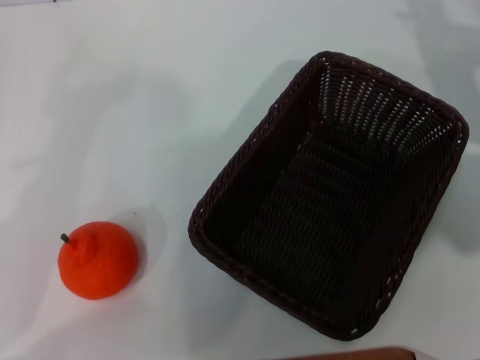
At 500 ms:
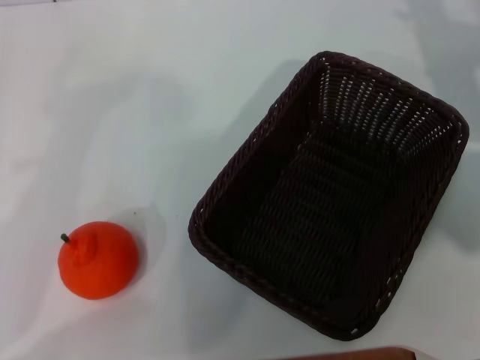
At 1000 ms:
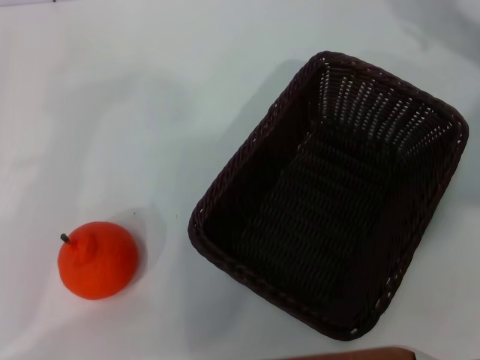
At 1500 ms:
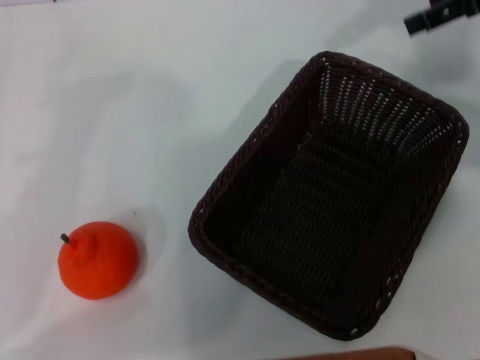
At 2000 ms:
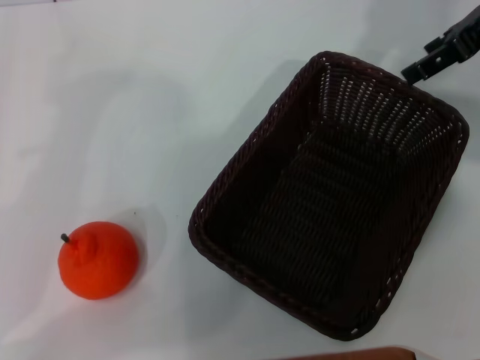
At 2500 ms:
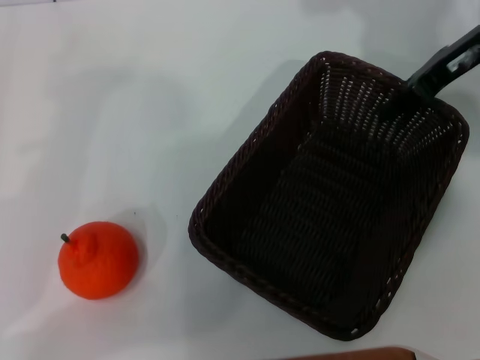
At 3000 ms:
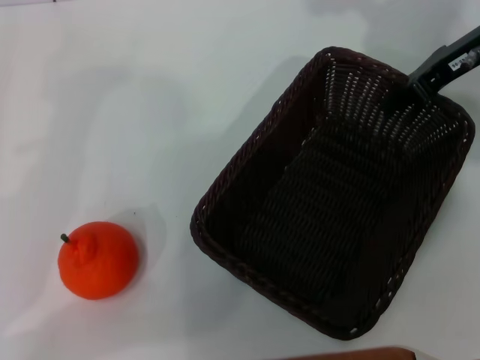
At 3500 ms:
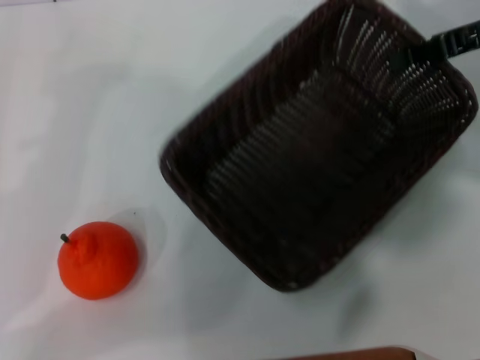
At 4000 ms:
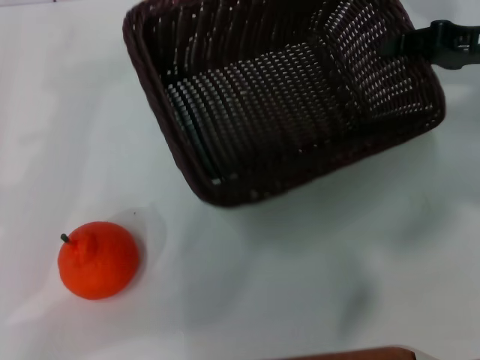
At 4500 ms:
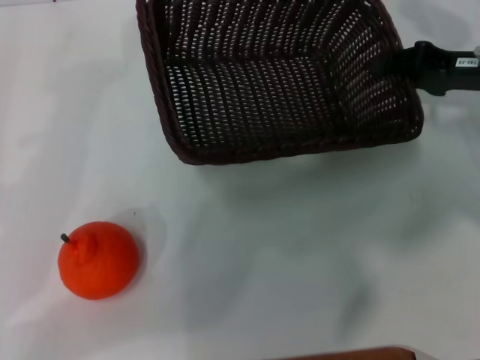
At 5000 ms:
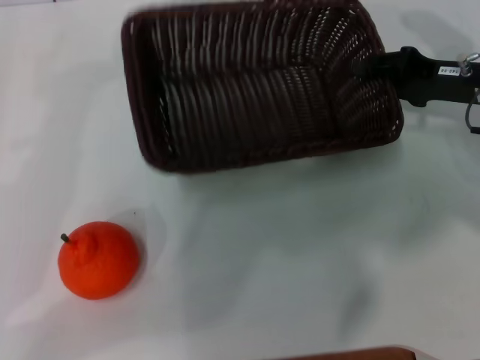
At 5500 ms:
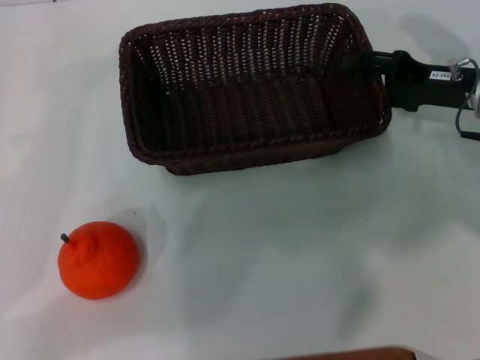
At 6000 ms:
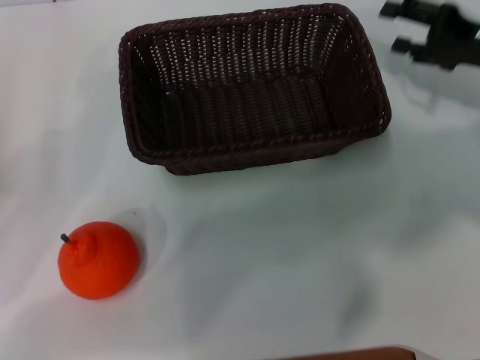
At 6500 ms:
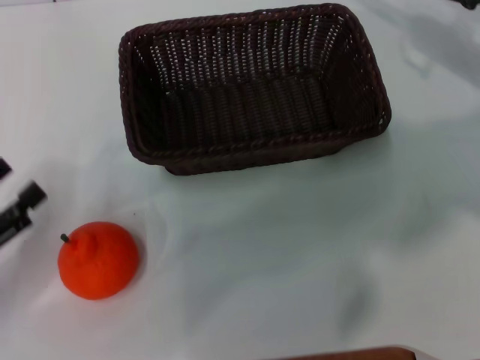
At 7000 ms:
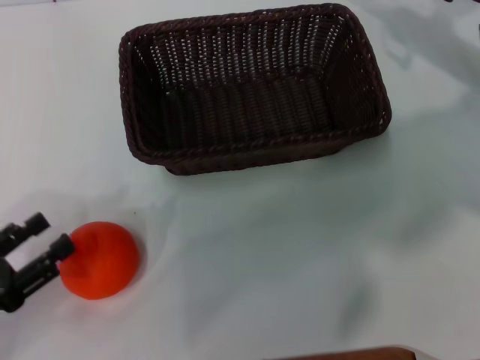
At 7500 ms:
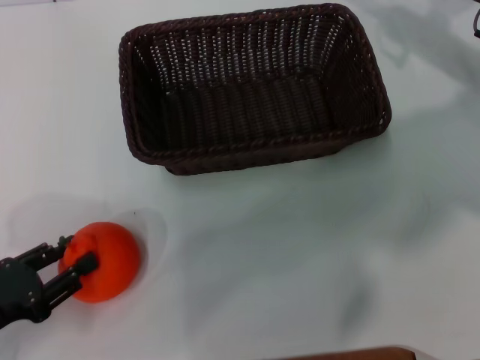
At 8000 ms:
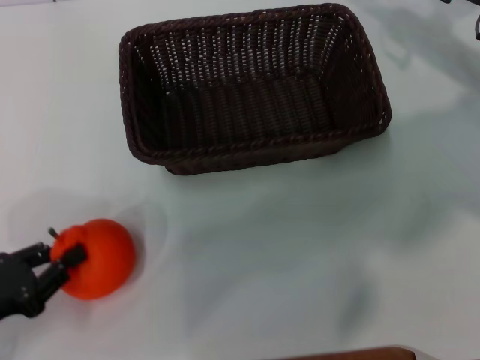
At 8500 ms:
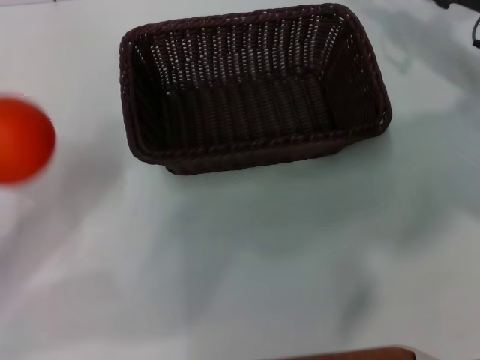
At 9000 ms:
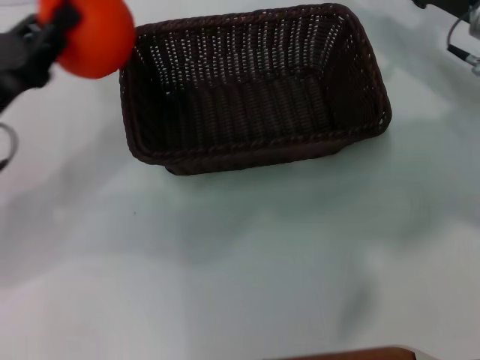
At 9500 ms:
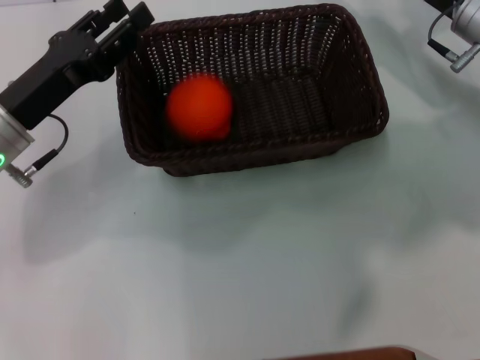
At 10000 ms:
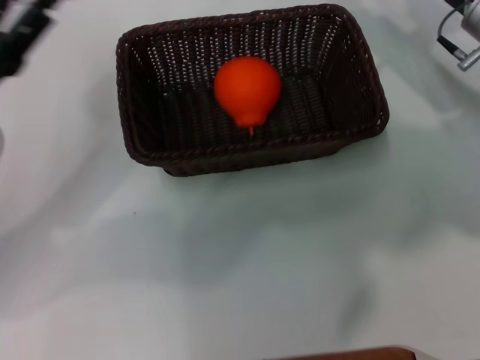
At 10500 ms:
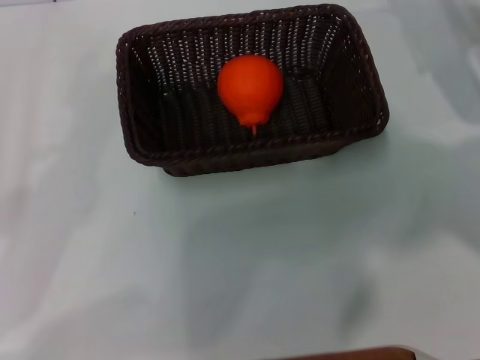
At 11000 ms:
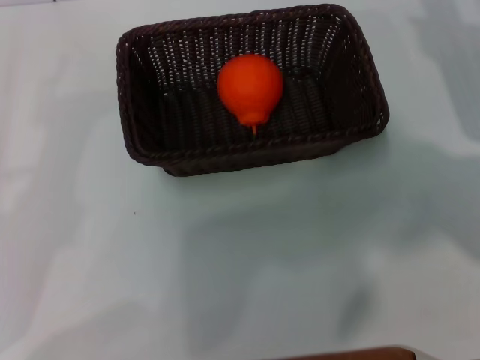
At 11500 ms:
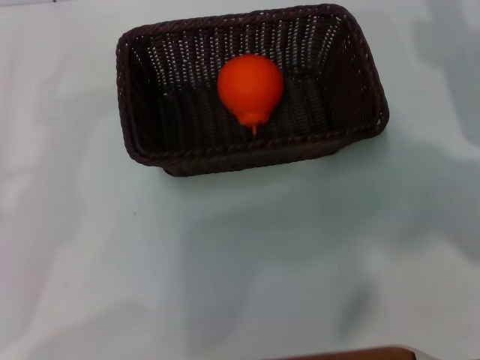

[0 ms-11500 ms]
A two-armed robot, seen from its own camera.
Task of the whole recording: the right gripper pick up the black basket and place it horizontally in the middle of the table, the left gripper pick up the orange and place it into the black basket.
Step, 0 ms to 3500 ms: Pick up the dark basket with the right gripper.
Step, 4000 ms to 5500 ms: Place the dark basket in the center of view with the right gripper.
Step, 6000 ms to 8000 ms: Pick up the orange with the left gripper.
Step, 8500 ms to 9500 ms: Place the orange into the dark basket with the left gripper.
0 ms to 2000 ms: The right gripper shifts roughly 15 cm upward.
2000 ms to 4000 ms: The right gripper goes roughly 10 cm downward, and closes.
4000 ms to 6000 ms: The right gripper opens up.
6000 ms to 7500 ms: The left gripper goes approximately 10 cm downward and backward. Meanwhile the right gripper moves some 5 cm.
7500 ms to 9500 ms: The left gripper shifts some 20 cm forward, to the right and upward, and closes, then reopens.
9500 ms to 11500 ms: The right gripper heads to the right, covering about 5 cm; the left gripper moves backward and to the left, about 20 cm, and opens up.

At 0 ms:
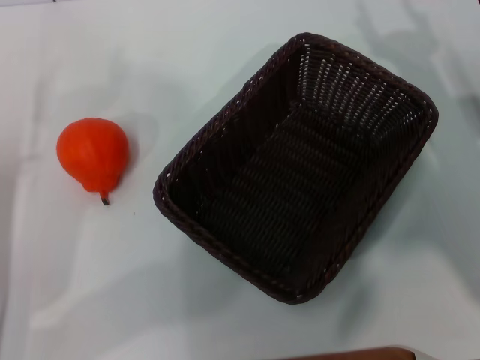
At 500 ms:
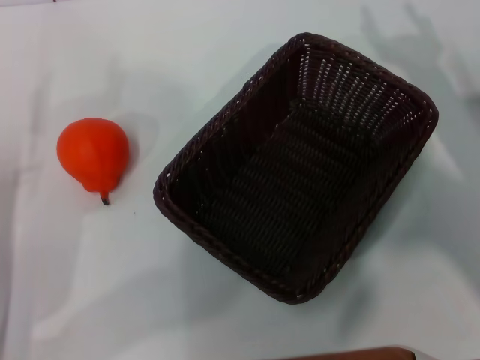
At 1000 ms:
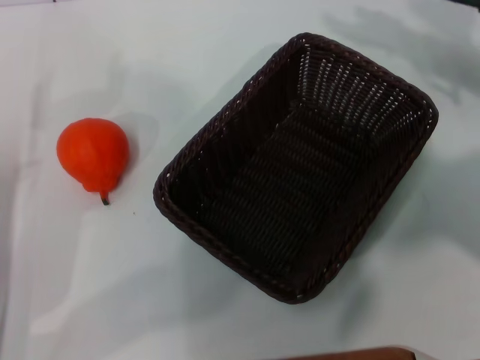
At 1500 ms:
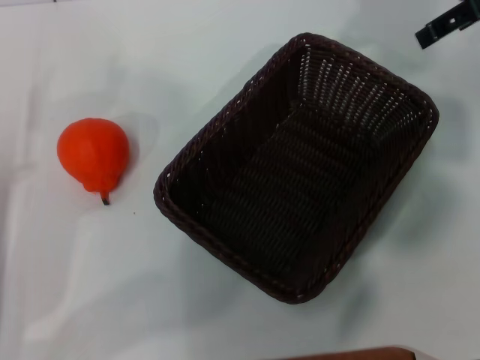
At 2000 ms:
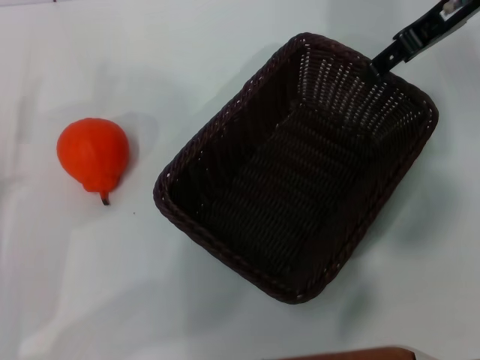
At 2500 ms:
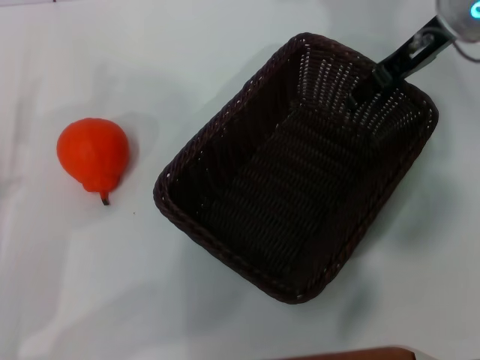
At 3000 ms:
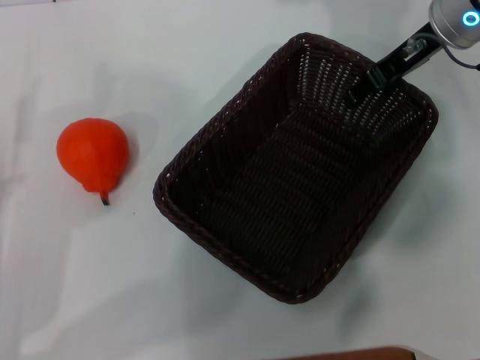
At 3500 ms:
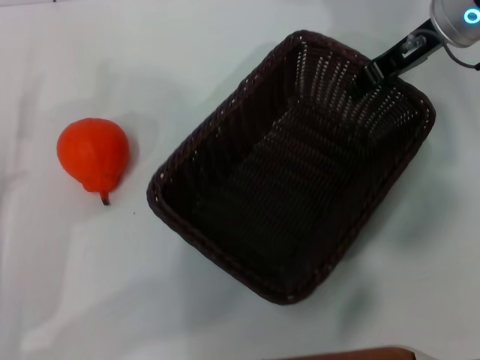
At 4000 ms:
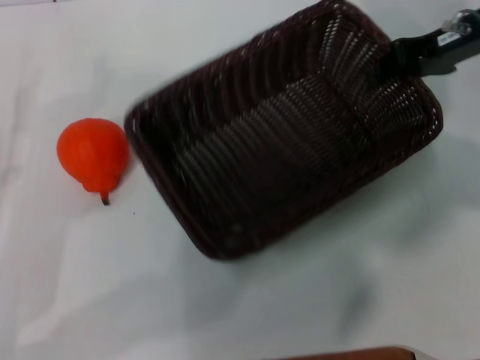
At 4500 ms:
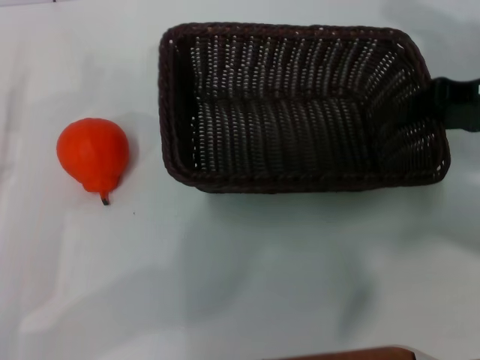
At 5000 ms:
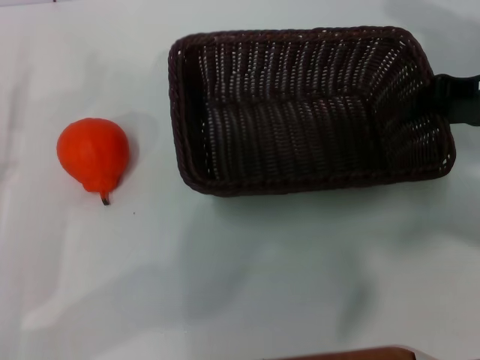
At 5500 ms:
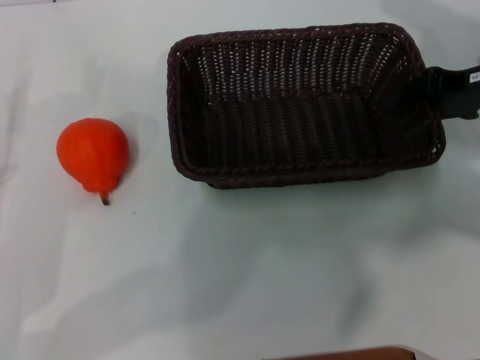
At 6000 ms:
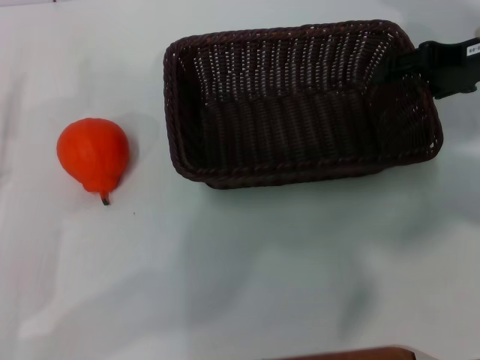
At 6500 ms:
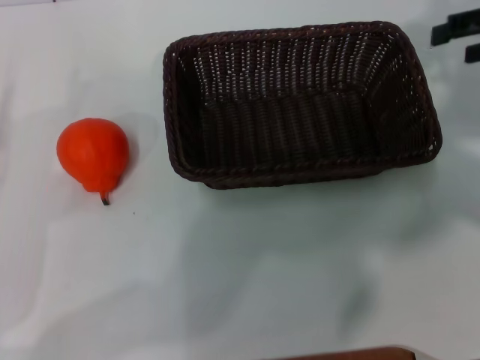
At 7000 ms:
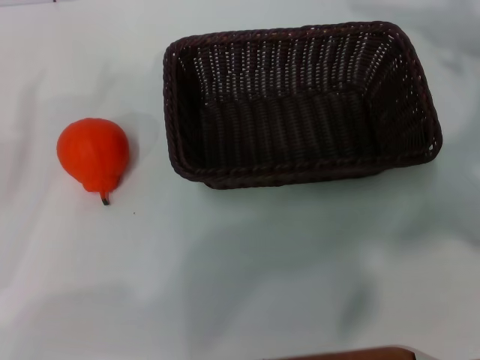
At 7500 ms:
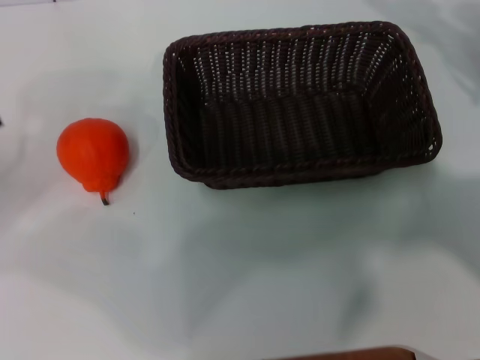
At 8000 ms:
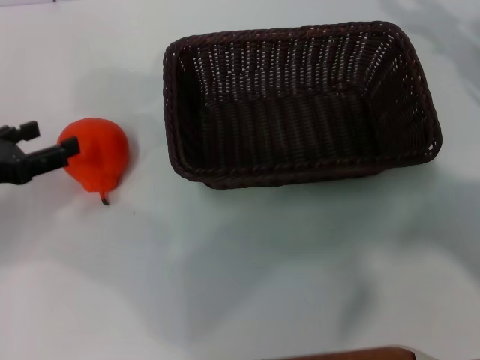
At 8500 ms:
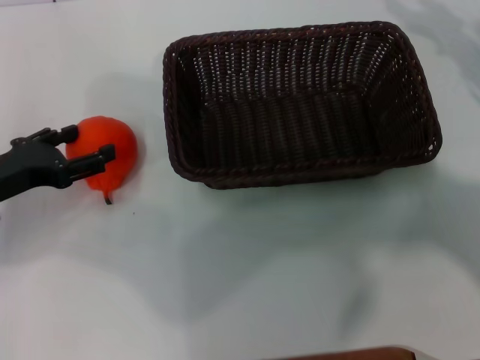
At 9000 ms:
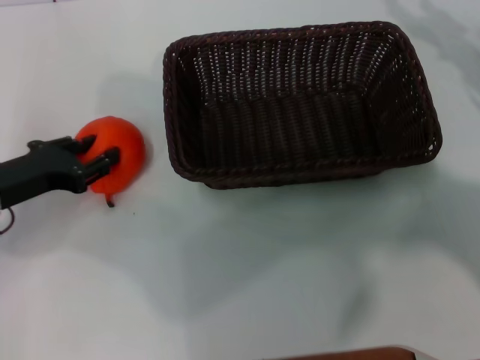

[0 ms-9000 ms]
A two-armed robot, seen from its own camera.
Task of the whole recording: the right gripper pick up the black basket and place it horizontally in the middle of the table, the left gripper pick up the orange and place it into the black basket.
Step, 0 ms to 3500 ms: Pick up the dark basket with the right gripper.
Step, 4000 ms to 6000 ms: Place the dark basket in the center of view with the right gripper.
0 ms to 2000 ms: The right gripper is displaced upward and forward by roughly 20 cm.
2000 ms to 4500 ms: The right gripper shifts some 15 cm downward, to the right and backward, and closes its fingers.
4500 ms to 7000 ms: The left gripper moves to the left, approximately 5 cm, while the right gripper shifts roughly 10 cm upward and to the right, and opens up.
7000 ms to 9000 ms: The right gripper heads downward, covering about 10 cm; the left gripper goes approximately 10 cm to the right and forward.

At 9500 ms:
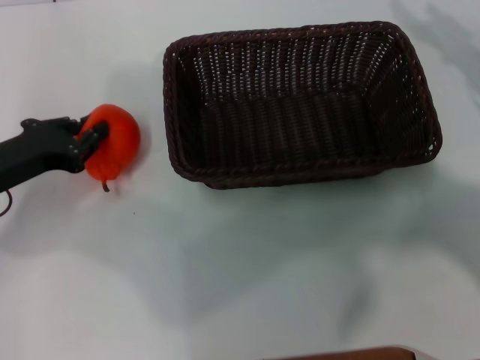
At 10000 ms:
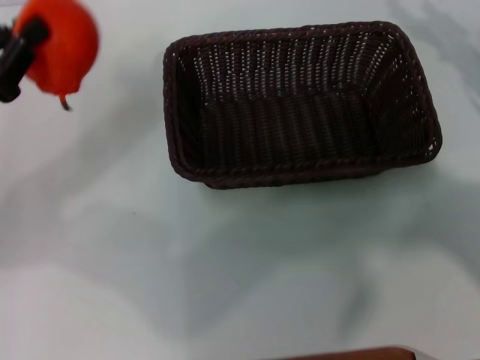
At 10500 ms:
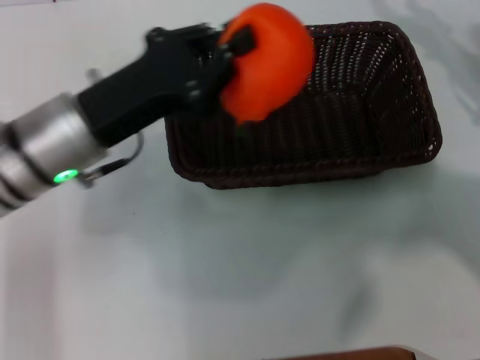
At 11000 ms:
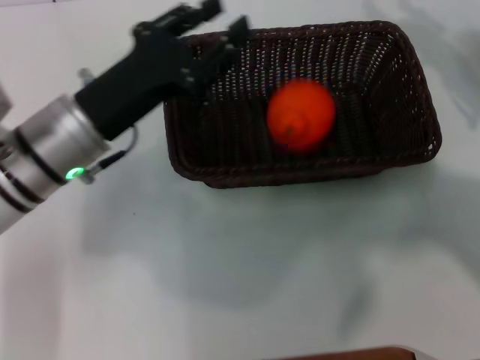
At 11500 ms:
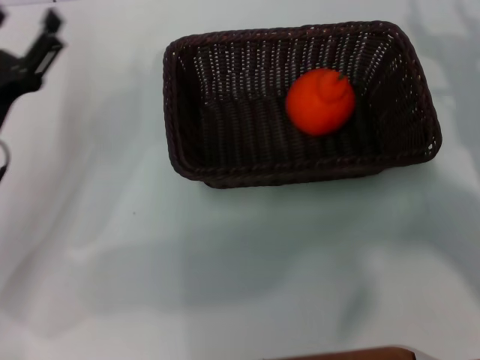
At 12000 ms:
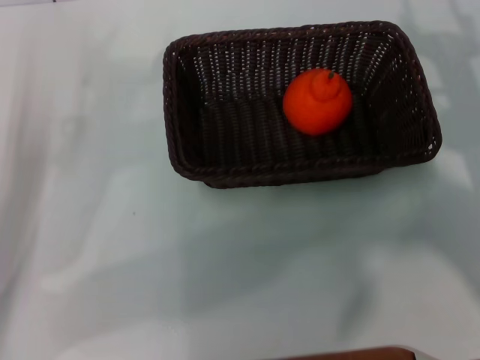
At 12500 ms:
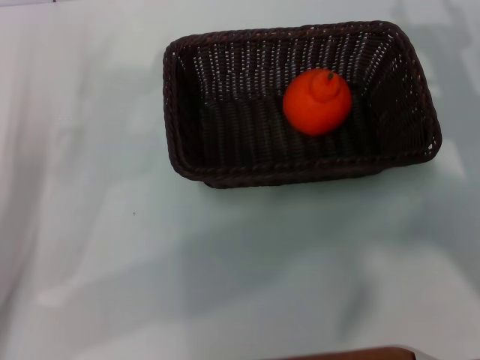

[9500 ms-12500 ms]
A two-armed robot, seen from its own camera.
Task of the whole recording: the right gripper pick up the black basket and place it horizontally in the middle of the table, the left gripper pick up the orange and place it into the black basket.
Step, 10000 ms to 10500 ms: Place the orange into the dark basket with the left gripper.
9500 ms to 11000 ms: The left gripper moves to the right, some 10 cm.
11000 ms to 12500 ms: The left gripper moves to the left, downward and backward, approximately 15 cm, and opens up. The right gripper ends up about 5 cm from where it was.
